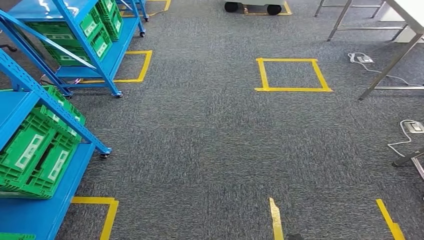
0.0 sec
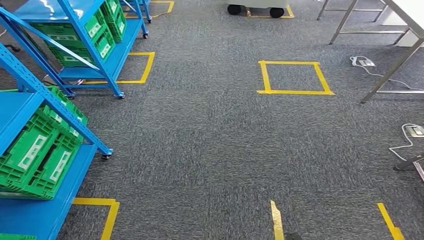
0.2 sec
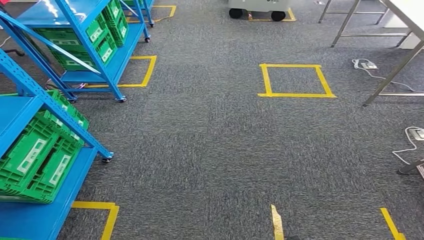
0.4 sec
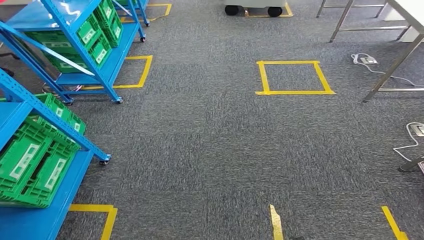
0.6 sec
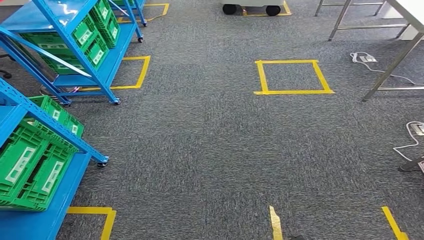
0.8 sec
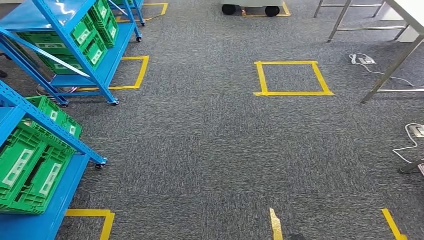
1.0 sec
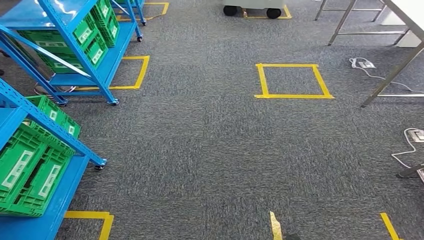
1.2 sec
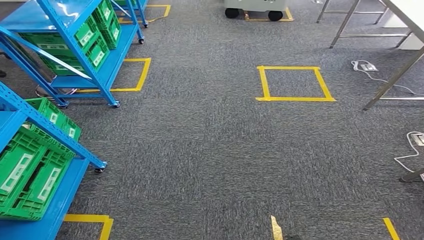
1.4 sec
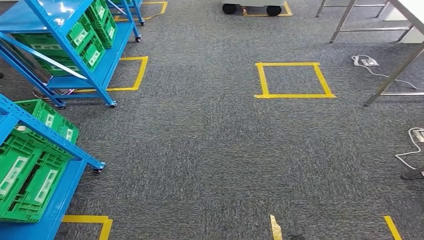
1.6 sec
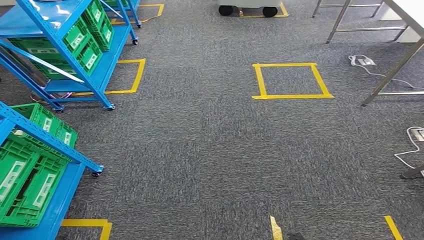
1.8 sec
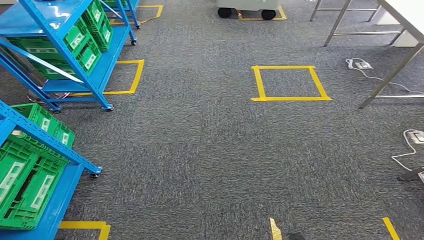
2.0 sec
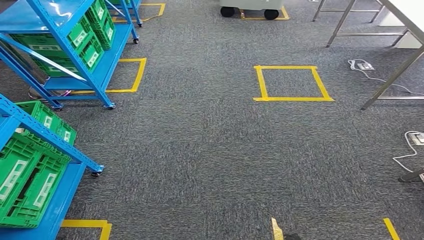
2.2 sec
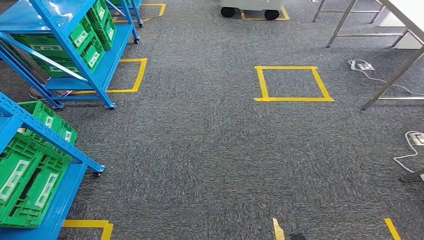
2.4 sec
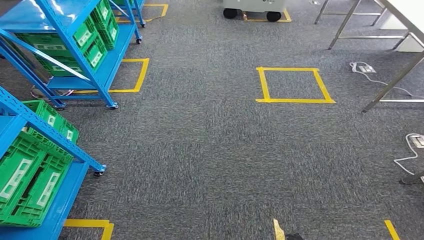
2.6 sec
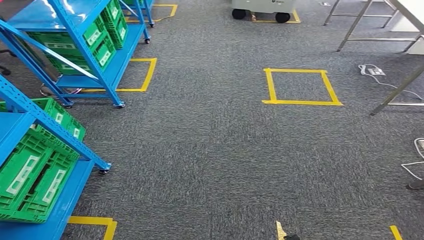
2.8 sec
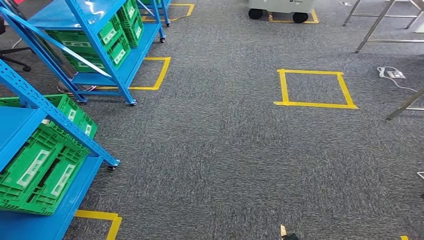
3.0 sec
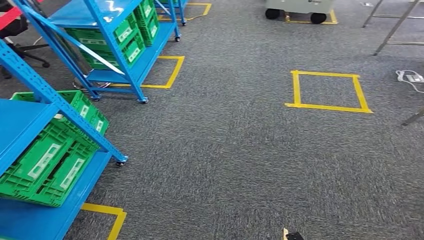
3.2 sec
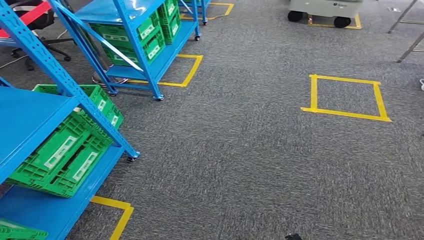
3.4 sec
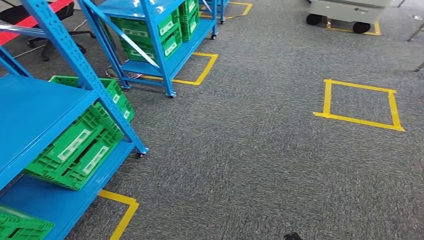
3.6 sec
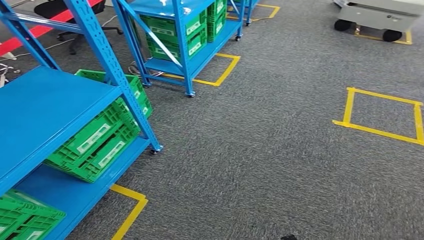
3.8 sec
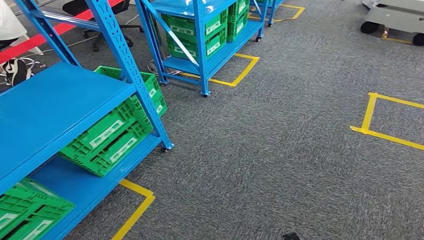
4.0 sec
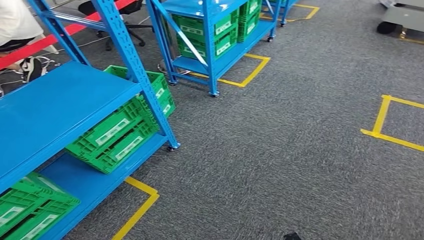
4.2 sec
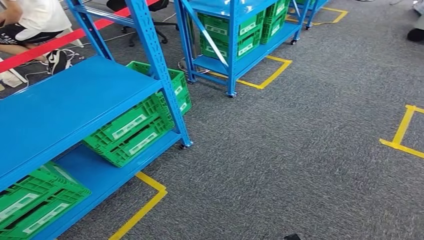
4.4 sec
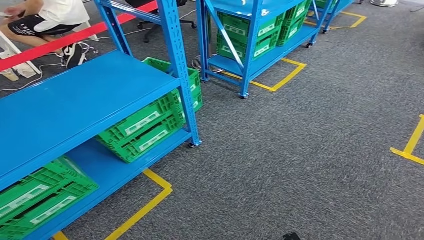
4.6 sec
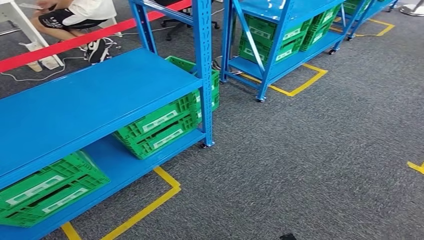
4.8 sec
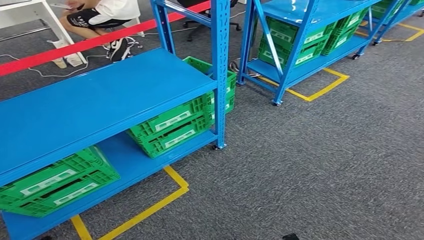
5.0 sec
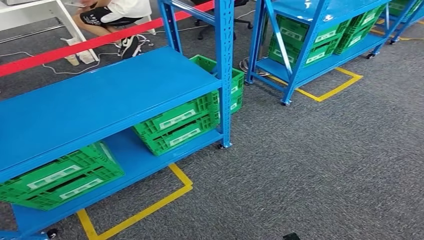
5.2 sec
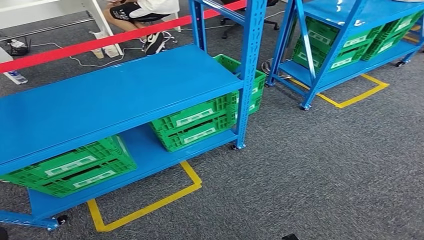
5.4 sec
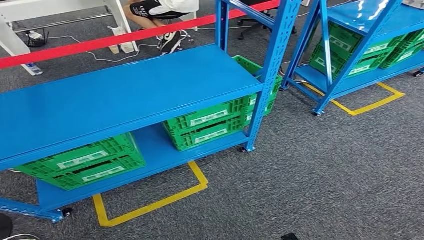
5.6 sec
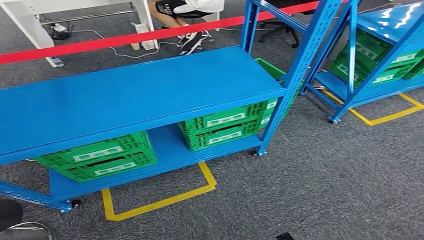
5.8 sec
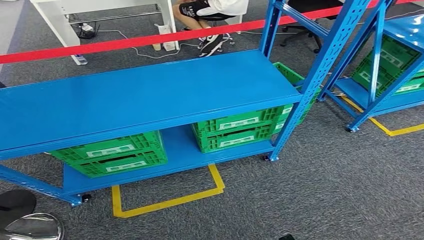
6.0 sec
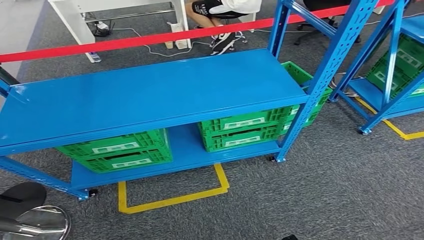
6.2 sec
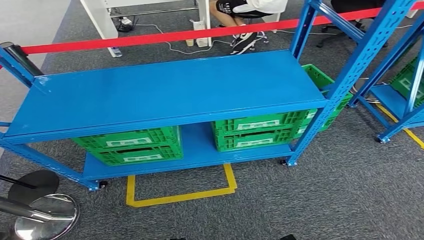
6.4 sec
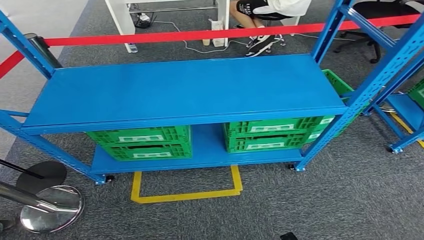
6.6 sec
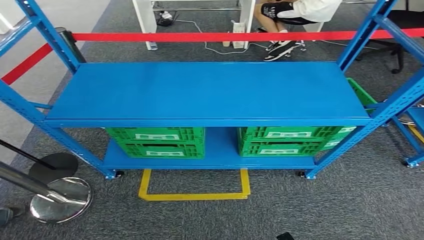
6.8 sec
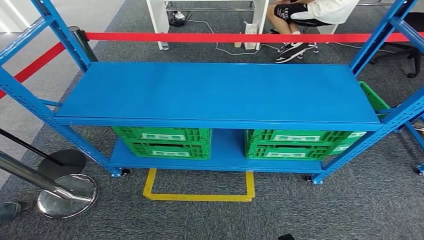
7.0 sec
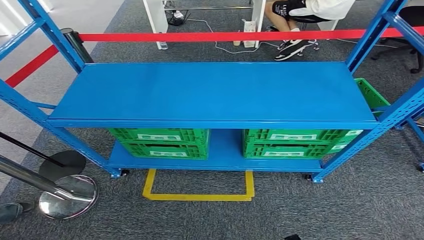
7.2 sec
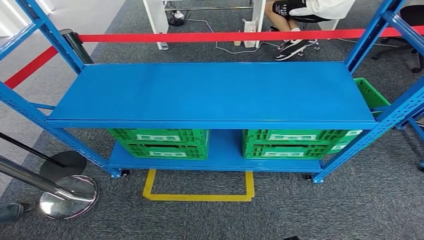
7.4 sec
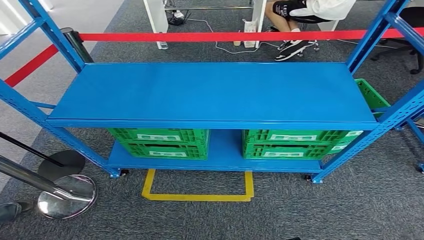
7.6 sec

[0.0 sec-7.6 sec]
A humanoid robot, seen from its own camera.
Step, 0.0 sec to 7.6 sec: Return to the initial position at the workbench.
